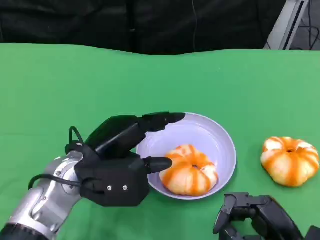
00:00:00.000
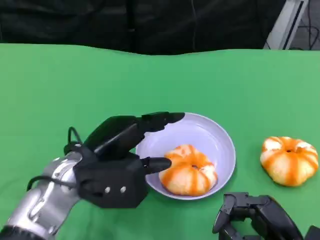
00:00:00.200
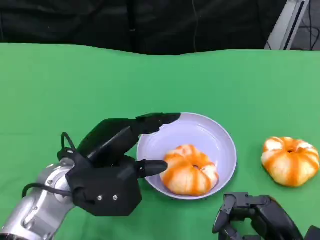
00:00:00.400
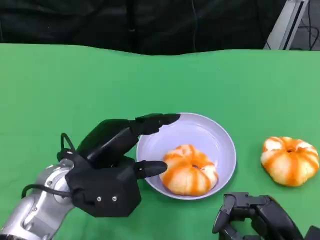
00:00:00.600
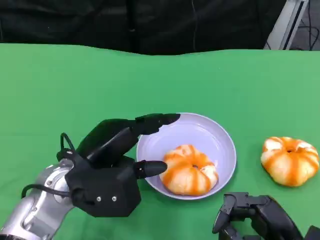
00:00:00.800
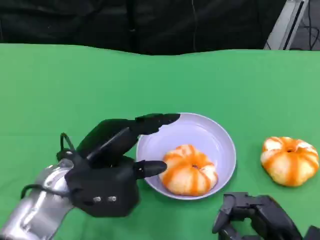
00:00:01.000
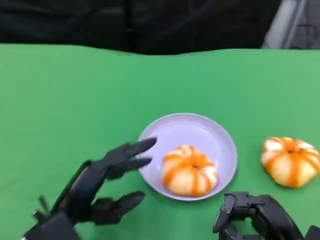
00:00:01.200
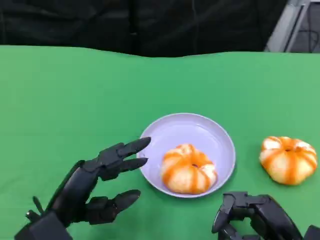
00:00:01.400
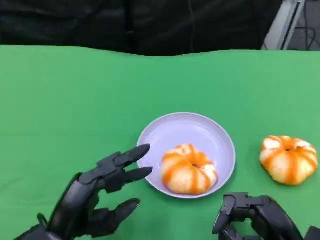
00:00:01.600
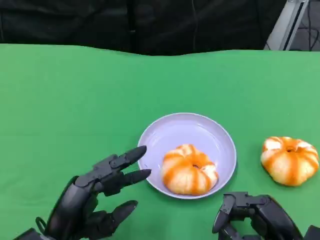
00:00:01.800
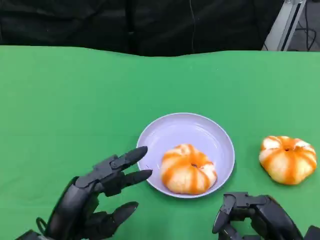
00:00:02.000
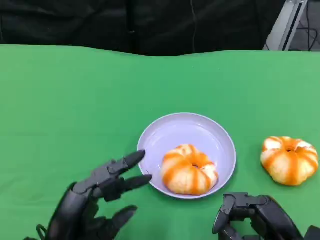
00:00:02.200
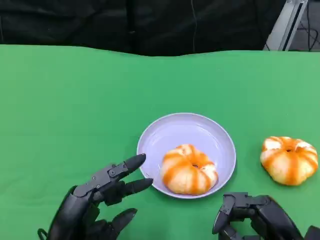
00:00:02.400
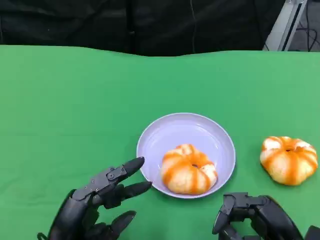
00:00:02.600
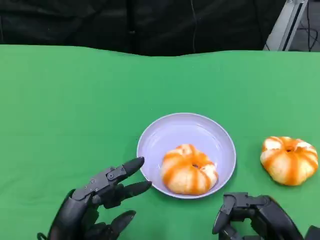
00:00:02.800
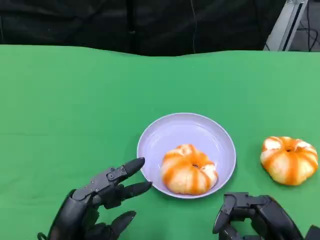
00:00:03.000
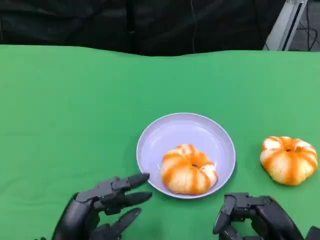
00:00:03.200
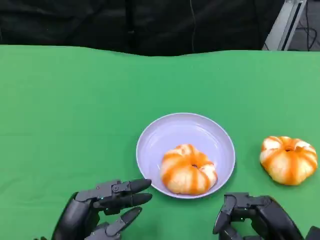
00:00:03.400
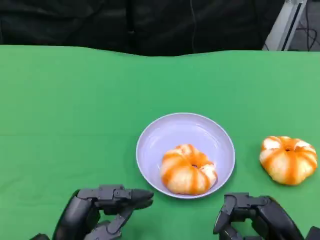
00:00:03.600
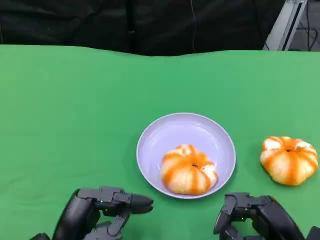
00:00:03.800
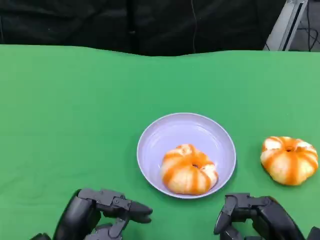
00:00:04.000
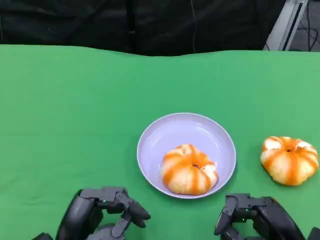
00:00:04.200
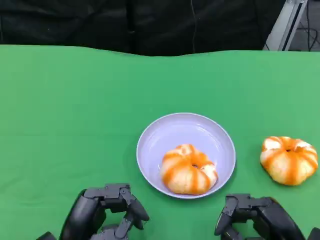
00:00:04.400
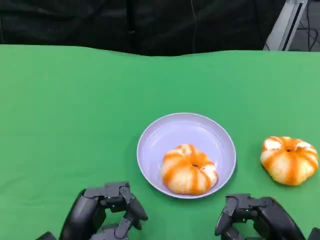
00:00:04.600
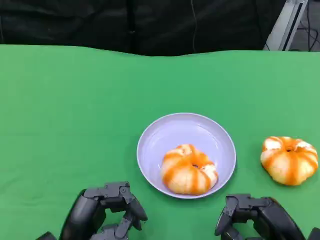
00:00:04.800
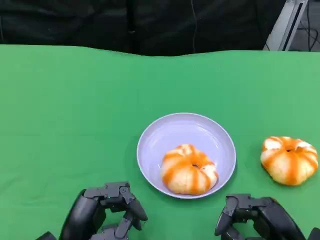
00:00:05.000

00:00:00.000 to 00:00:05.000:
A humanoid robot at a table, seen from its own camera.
Task of the whole recording: Grasp the bread from the table and place it into the plate.
00:00:00.000 to 00:00:01.600: The left hand travels backward and downward by about 10 cm.
00:00:01.600 to 00:00:03.400: The hands move only a little.
00:00:03.400 to 00:00:05.000: Neither hand changes place.

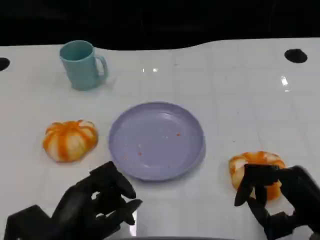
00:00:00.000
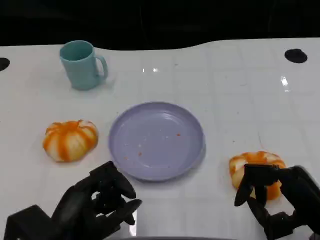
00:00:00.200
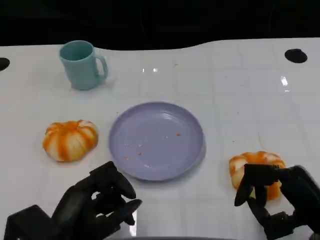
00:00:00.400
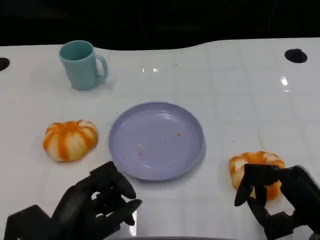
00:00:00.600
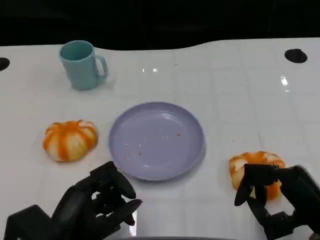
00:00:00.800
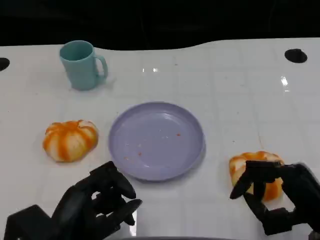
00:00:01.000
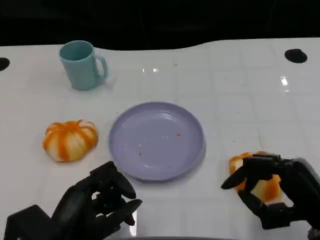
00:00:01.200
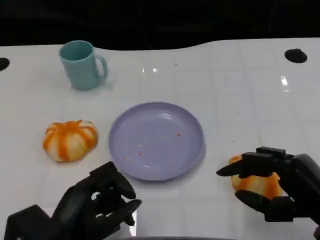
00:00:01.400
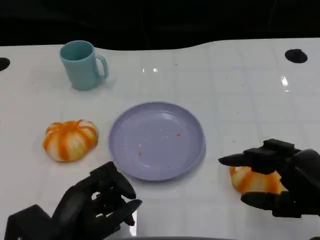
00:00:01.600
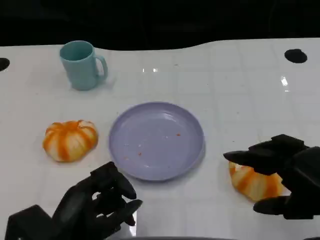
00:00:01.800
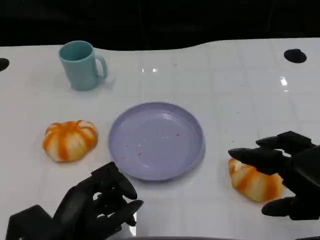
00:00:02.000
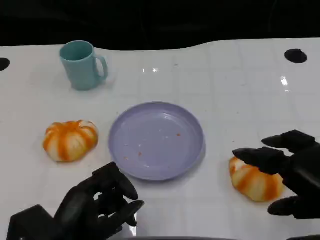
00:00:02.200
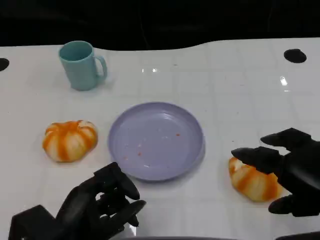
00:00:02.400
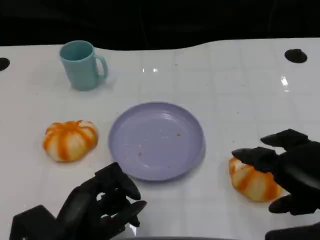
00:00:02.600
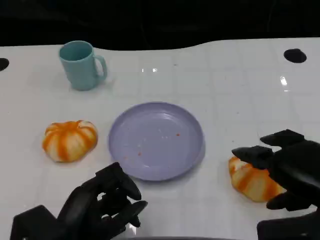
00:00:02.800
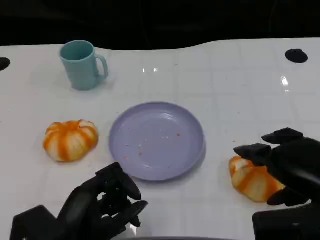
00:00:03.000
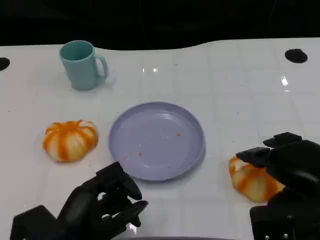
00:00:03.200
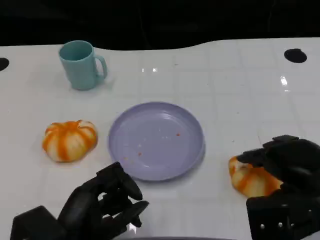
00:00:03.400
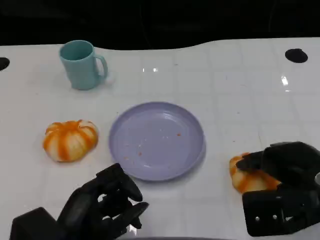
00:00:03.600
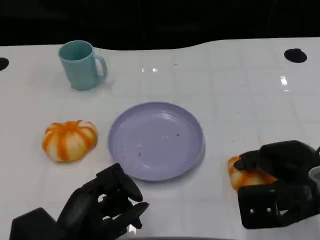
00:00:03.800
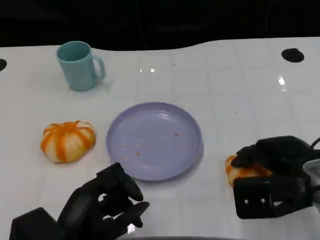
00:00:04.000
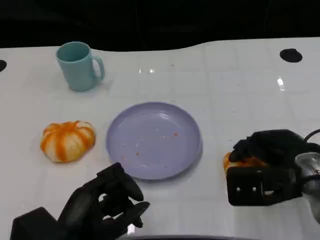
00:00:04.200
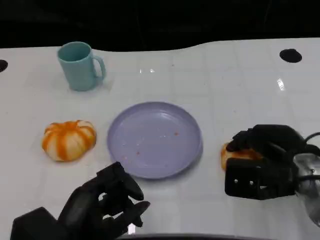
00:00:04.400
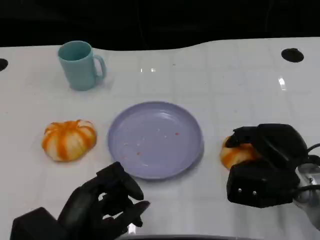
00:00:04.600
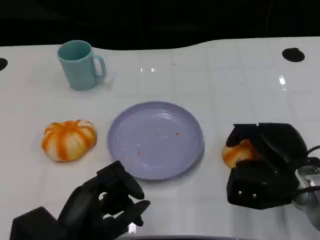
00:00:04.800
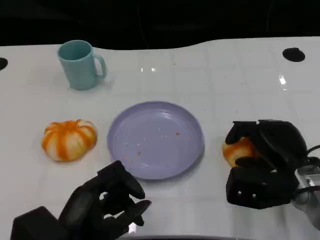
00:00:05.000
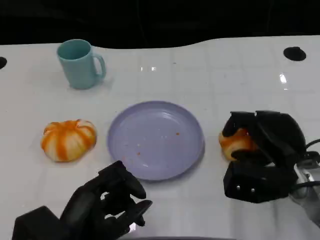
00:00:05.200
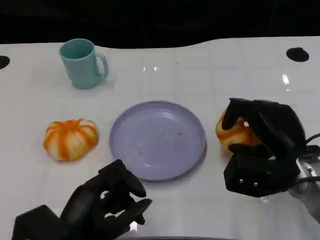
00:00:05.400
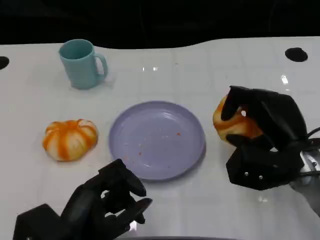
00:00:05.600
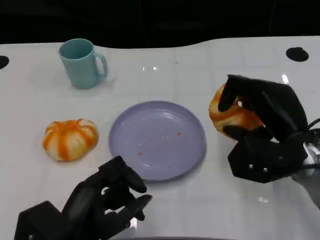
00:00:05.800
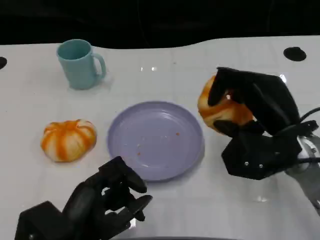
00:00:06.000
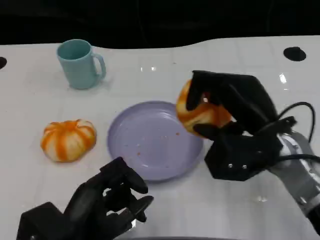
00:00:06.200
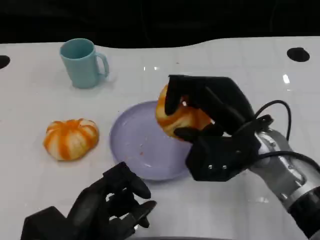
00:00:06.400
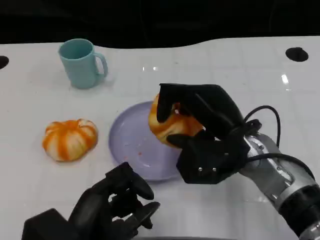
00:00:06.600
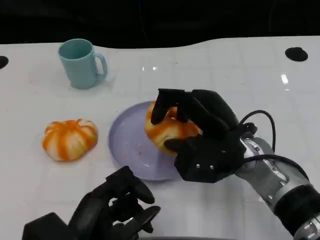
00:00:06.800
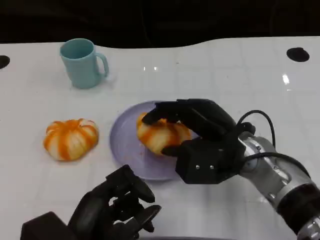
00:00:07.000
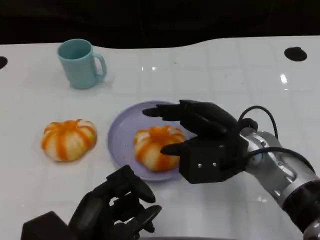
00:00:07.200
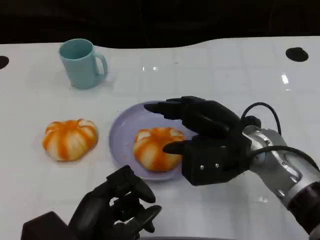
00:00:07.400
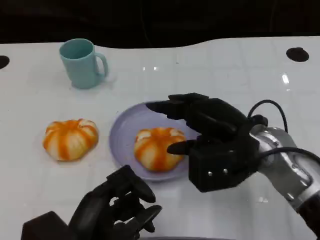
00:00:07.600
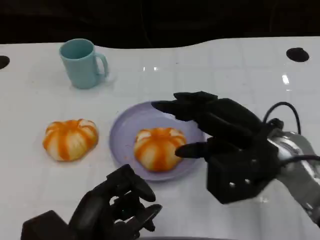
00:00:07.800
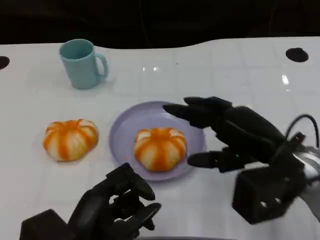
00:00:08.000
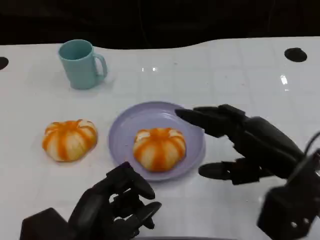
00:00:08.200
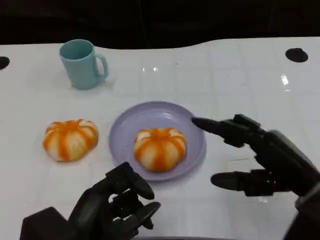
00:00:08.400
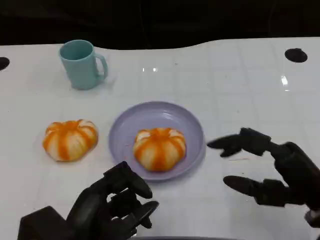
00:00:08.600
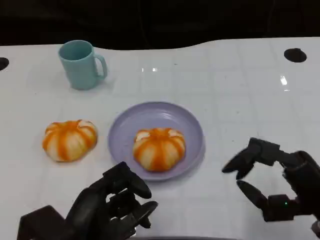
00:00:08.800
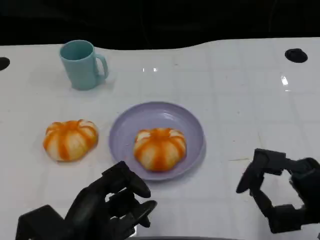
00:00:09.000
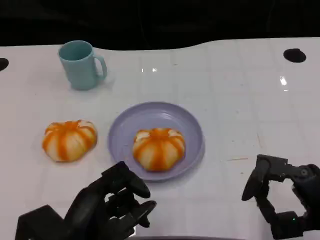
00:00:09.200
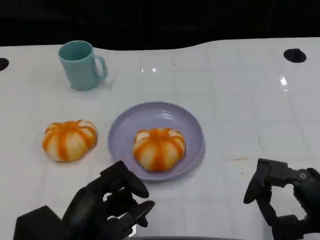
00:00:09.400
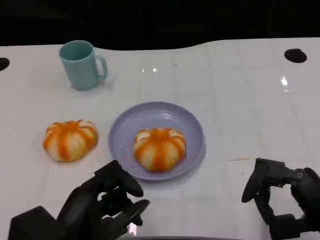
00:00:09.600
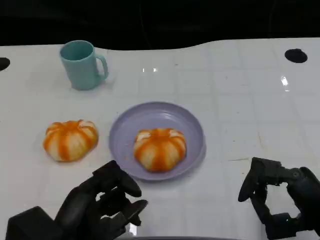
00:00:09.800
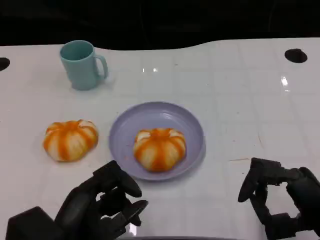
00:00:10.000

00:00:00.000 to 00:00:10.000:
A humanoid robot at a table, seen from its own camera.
Task of the whole recording: Grasp the bread from the table and place it into the plate.
00:00:00.000 to 00:00:01.400: The hands make only small movements.
00:00:02.800 to 00:00:04.200: The right hand heads forward, covering approximately 10 cm.
00:00:05.800 to 00:00:07.200: The right hand travels to the left by approximately 5 cm.
00:00:07.200 to 00:00:08.600: The right hand moves to the right and backward, approximately 15 cm.
00:00:08.600 to 00:00:10.000: The hands make only small movements.
